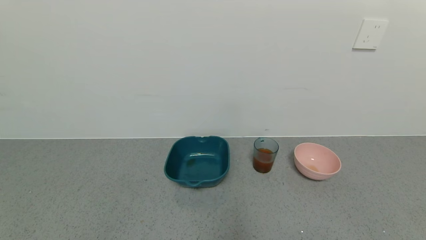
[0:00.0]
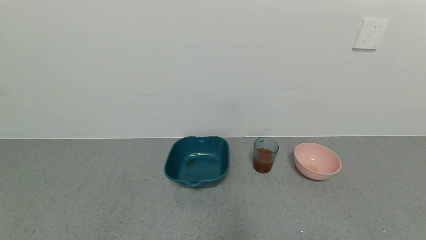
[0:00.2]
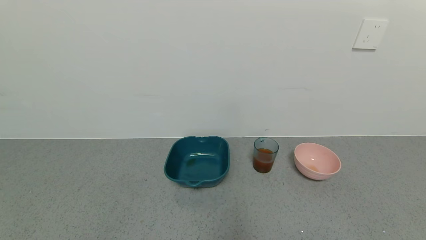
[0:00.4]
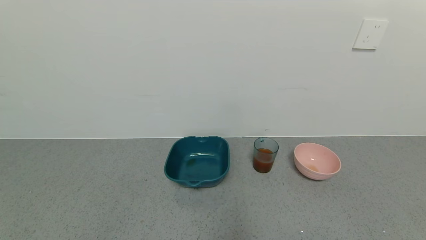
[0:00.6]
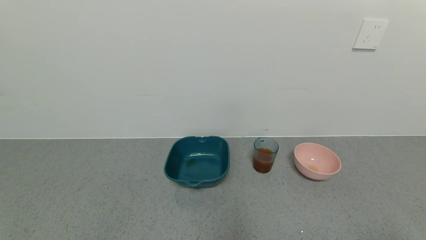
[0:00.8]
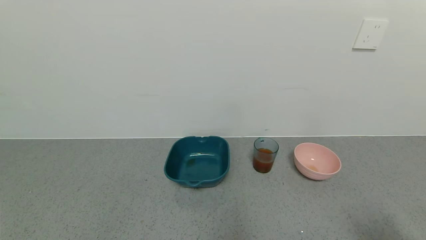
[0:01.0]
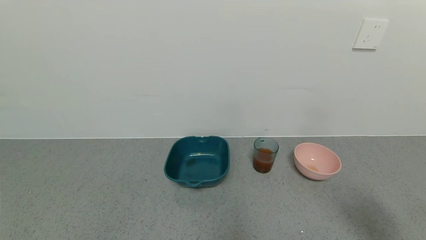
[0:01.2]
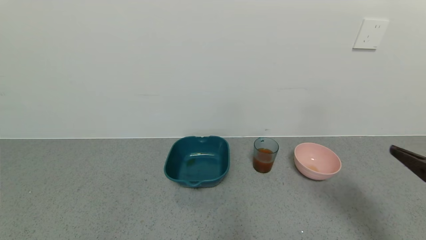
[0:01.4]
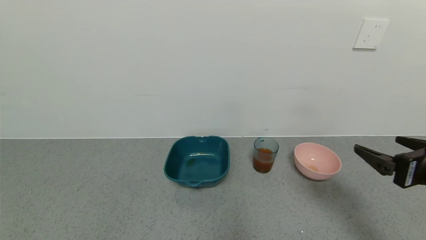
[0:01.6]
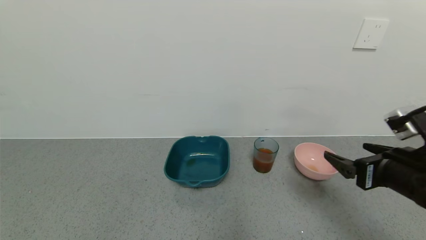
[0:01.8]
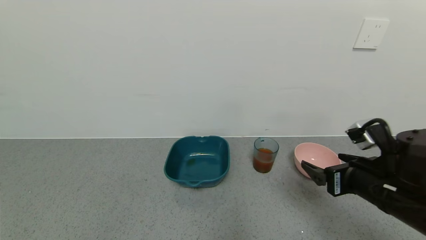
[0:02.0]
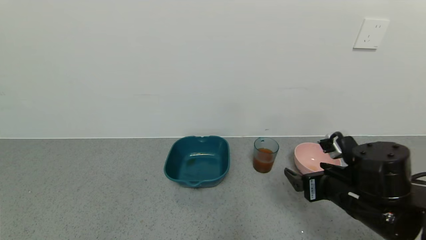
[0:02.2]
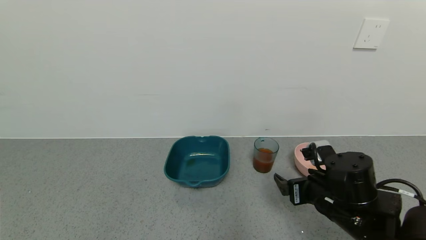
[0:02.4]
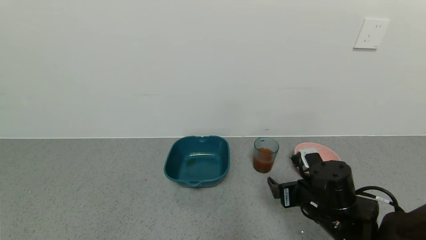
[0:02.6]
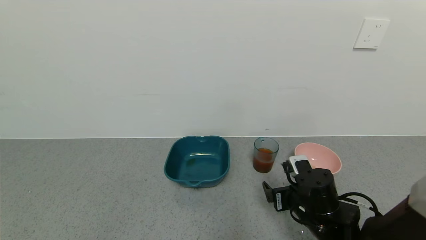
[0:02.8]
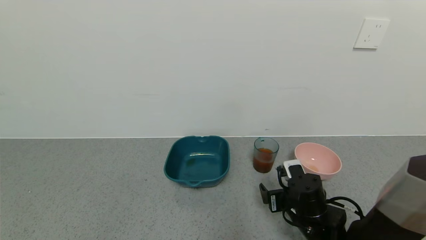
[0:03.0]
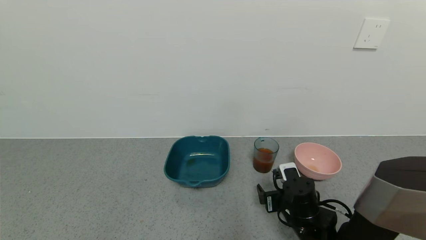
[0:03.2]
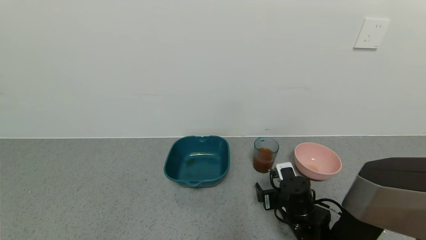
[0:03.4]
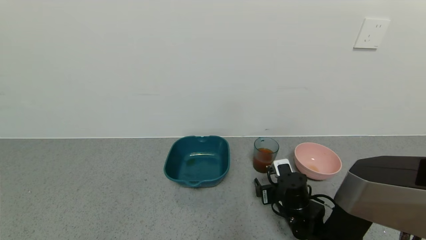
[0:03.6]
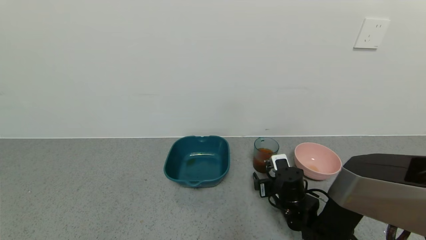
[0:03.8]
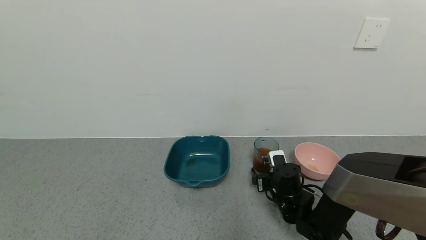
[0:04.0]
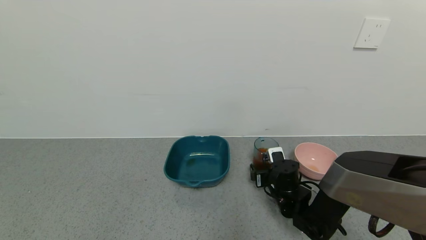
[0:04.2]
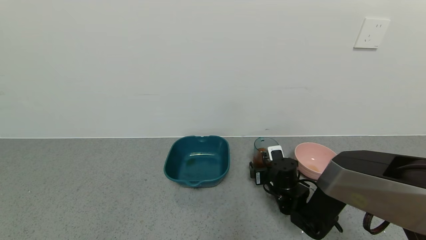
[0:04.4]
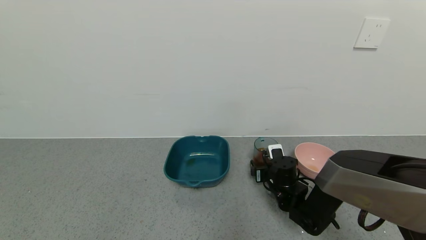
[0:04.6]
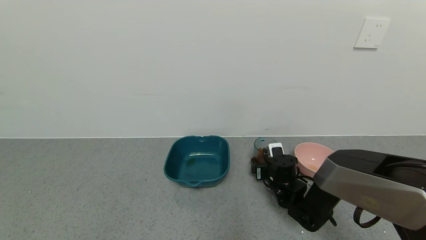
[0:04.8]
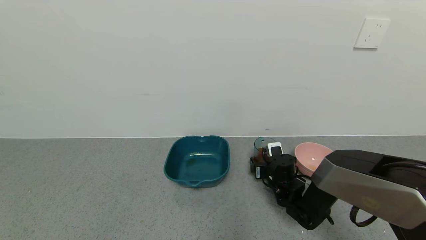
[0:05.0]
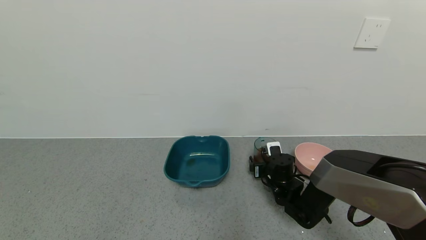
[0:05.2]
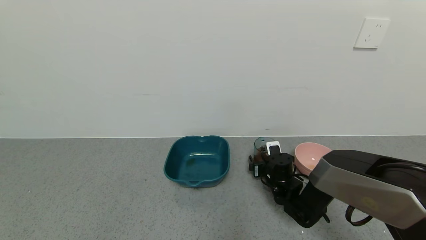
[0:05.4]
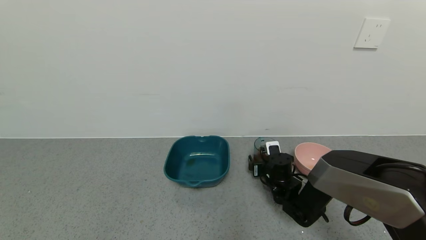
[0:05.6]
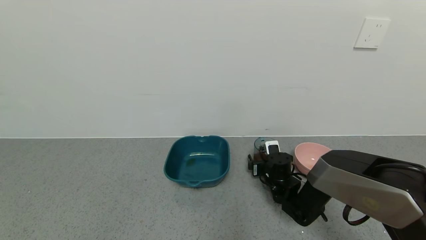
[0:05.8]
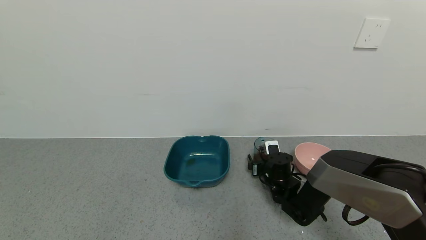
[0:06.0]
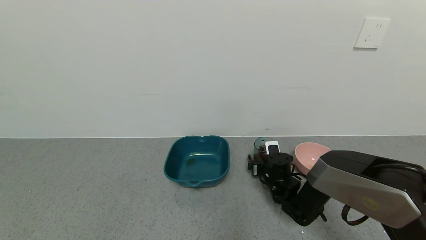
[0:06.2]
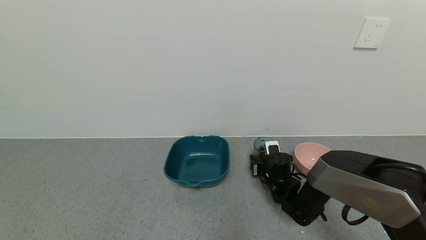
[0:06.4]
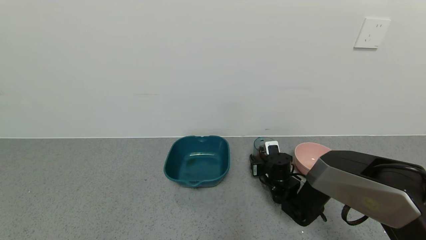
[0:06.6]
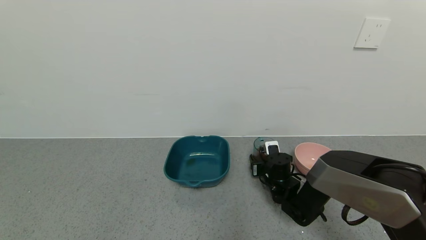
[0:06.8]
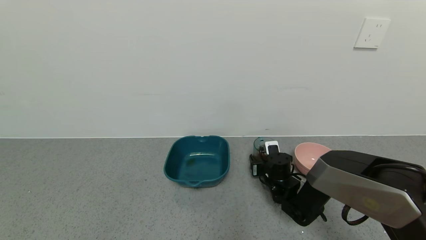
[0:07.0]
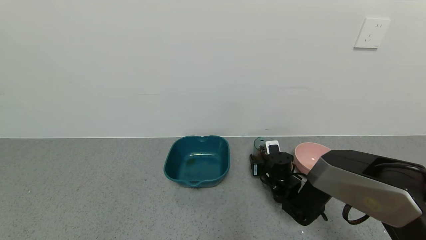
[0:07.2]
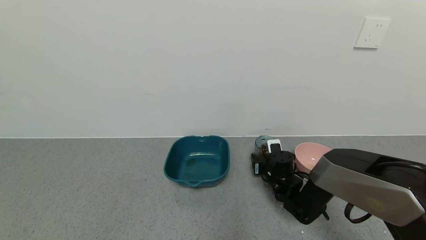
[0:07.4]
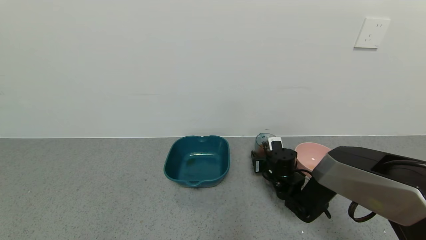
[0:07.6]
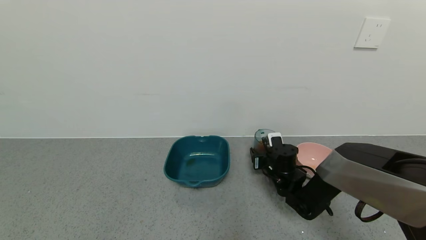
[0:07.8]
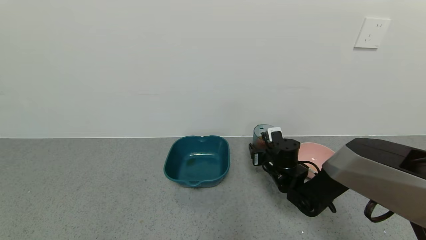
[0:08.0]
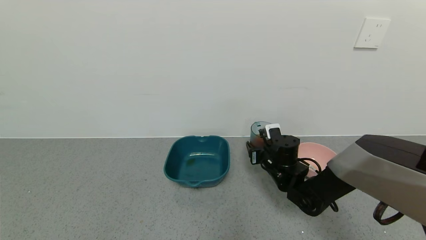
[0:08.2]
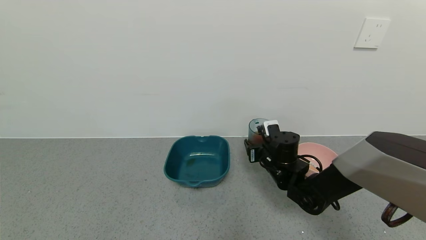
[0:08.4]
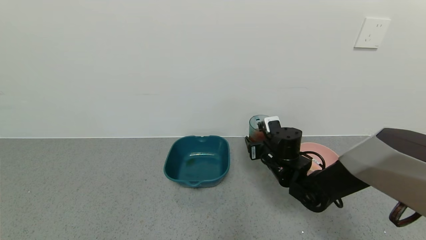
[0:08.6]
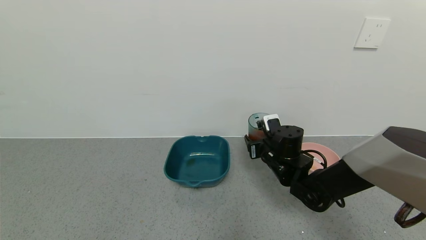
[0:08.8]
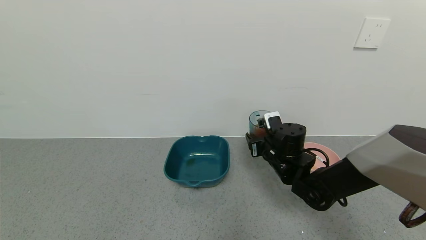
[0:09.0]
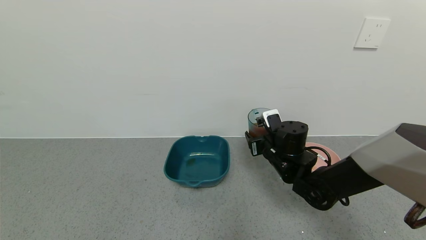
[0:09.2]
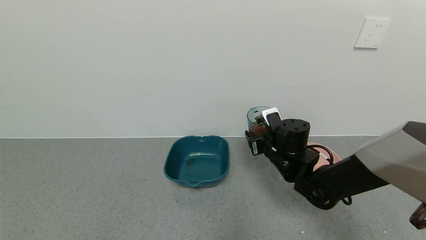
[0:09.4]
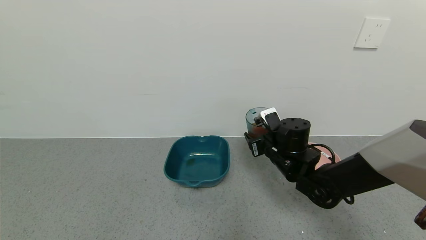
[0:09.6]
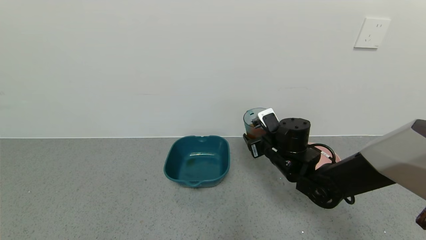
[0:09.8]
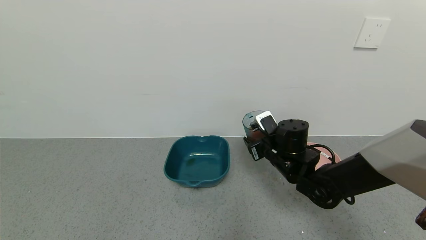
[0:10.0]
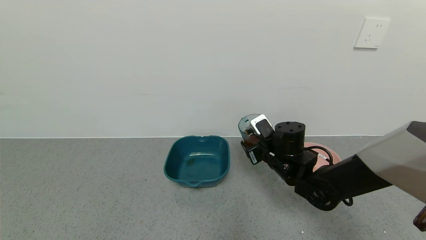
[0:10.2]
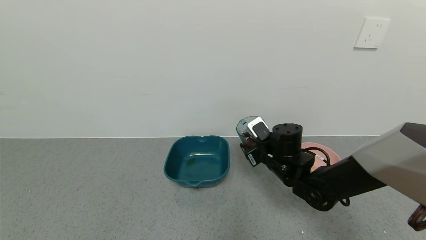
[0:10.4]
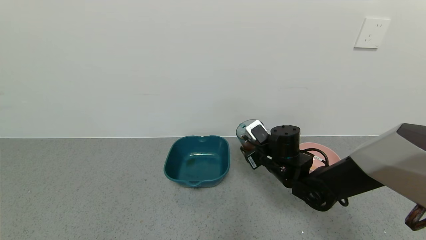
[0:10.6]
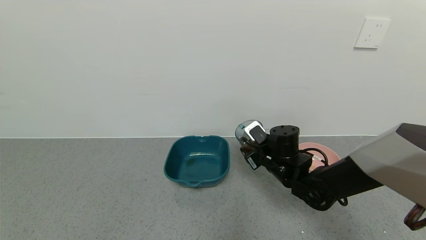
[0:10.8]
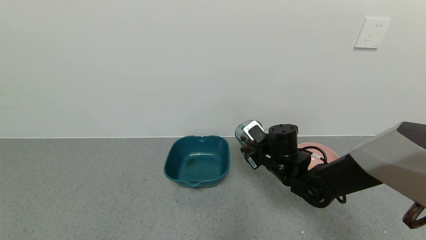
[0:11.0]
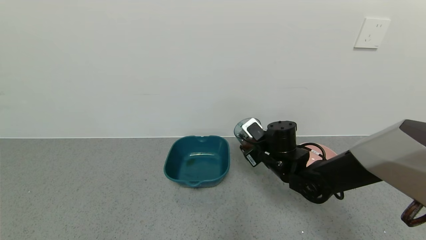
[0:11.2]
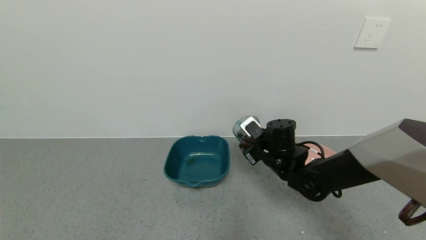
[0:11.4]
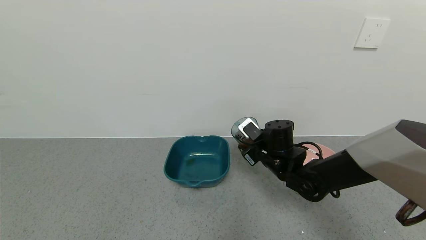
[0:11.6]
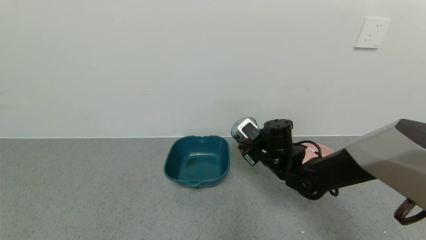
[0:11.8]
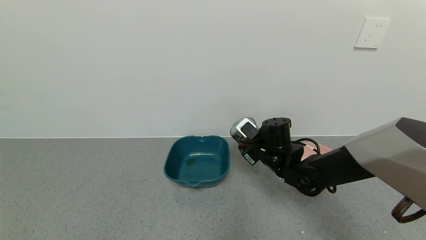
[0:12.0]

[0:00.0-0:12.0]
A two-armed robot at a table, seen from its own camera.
Task of the whole recording: use a gripper to pick up the cup and pour the liquid into a bowl or tray.
Step, 0:00.0 to 0:06.4: Pick up blue cup filled with tea with right gripper.
0:00.0 to 0:01.6: The right gripper moves forward and upward, some 25 cm.
0:01.6 to 0:03.0: The right gripper travels downward, to the left and forward by roughly 25 cm.
0:03.0 to 0:04.4: The right gripper shifts roughly 10 cm forward.
0:04.4 to 0:06.0: The grippers stay close to where they were, moving slightly.
0:06.0 to 0:07.6: The right gripper closes.
0:07.6 to 0:09.0: The right gripper shifts about 10 cm upward.
0:10.4 to 0:12.0: The grippers stay close to where they were, moving slightly.

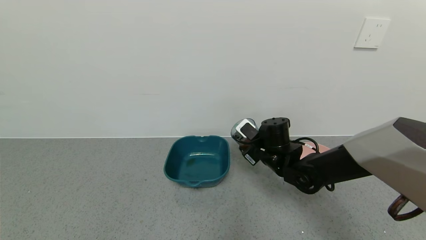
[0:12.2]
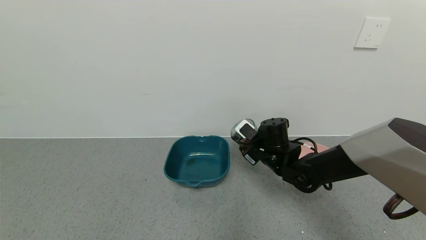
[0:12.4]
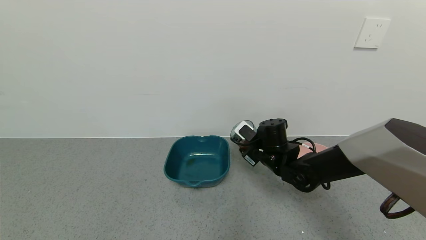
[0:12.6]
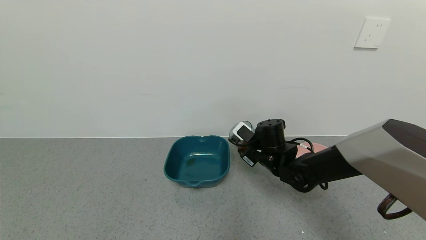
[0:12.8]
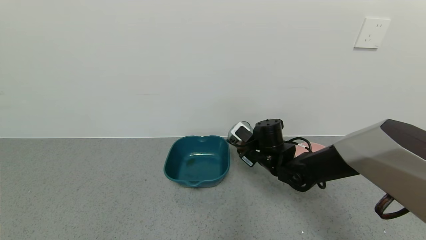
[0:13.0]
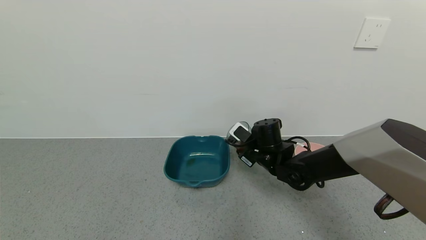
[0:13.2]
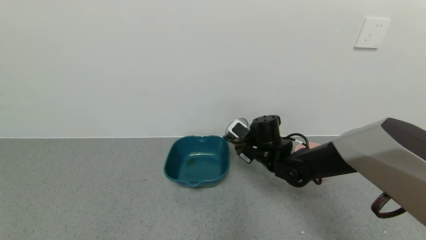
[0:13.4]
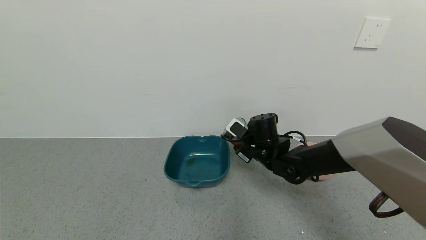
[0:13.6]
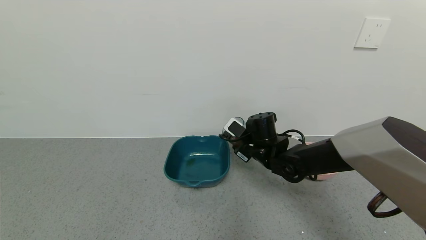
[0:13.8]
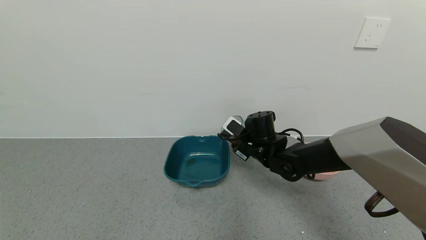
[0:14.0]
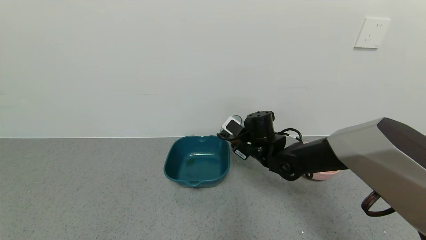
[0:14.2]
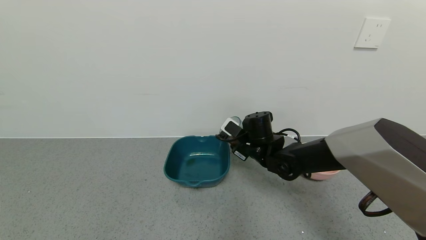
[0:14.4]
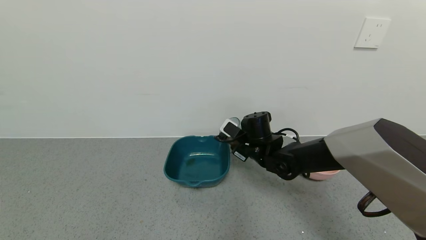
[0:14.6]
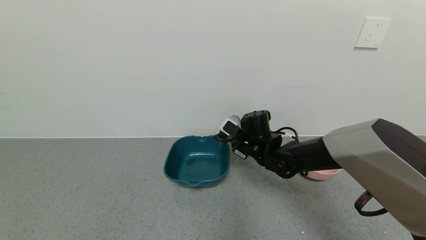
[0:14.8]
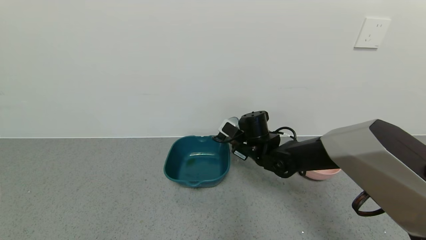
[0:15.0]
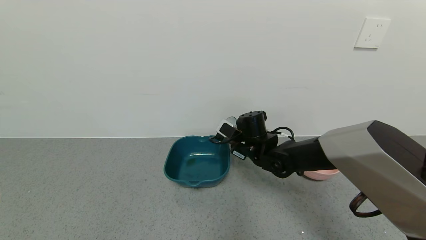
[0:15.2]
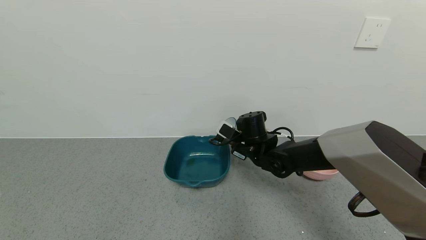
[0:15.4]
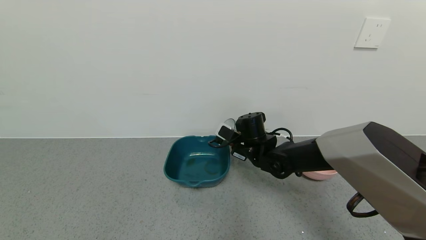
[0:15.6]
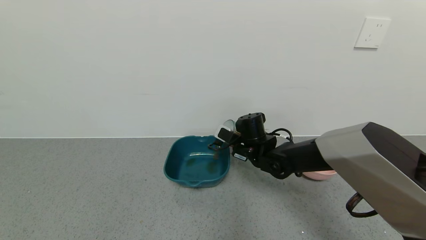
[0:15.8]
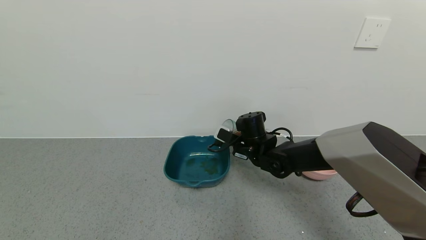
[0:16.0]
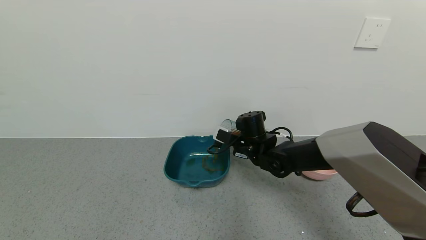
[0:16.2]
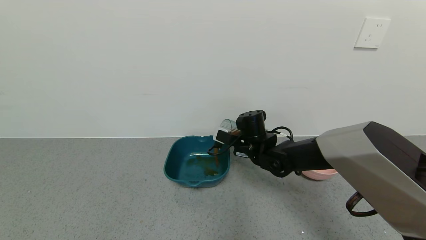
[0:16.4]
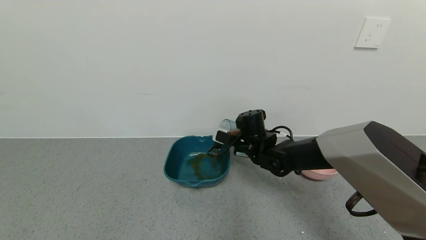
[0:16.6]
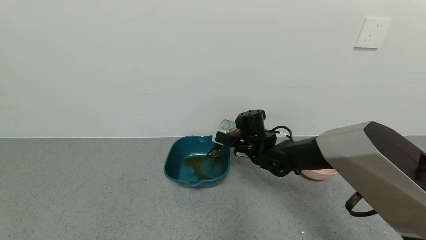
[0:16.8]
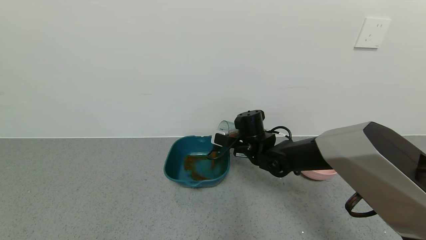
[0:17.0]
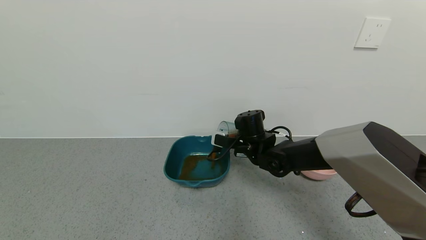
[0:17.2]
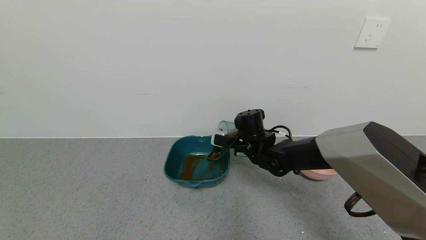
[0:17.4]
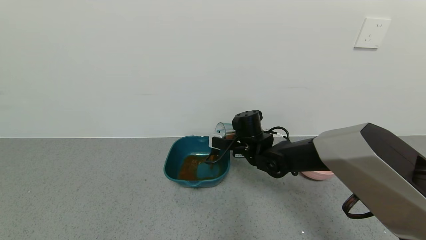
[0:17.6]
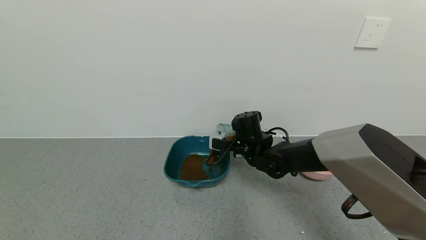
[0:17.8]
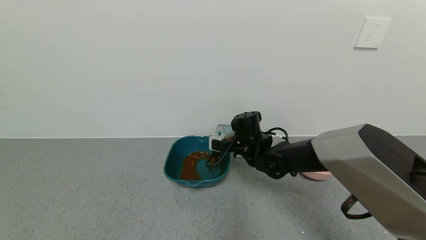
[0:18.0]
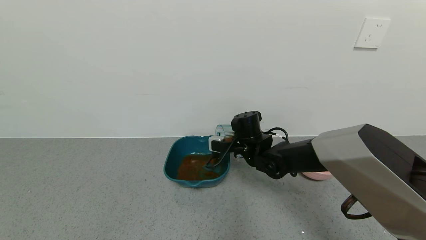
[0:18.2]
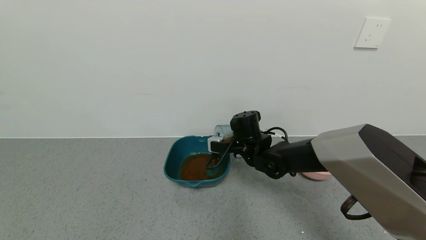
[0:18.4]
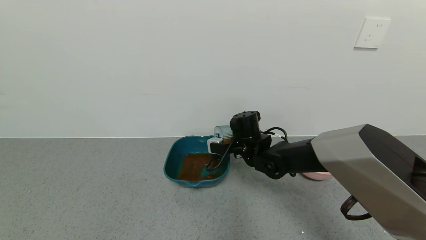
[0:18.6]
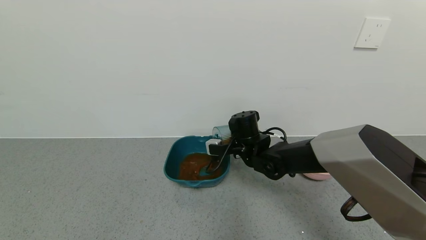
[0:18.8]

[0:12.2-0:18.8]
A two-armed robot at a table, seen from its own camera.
Task of the whole recording: use a gripper to pick up the cup and pour the liquid into a bowl or tray.
Step, 0:12.2 to 0:15.4: Pour the tea into the blue basin with right gripper.
0:12.2 to 0:15.4: The grippers stay close to where they were, moving slightly.
0:17.2 to 0:18.8: The grippers make only small movements.
